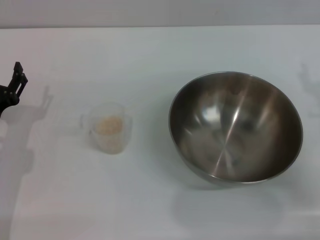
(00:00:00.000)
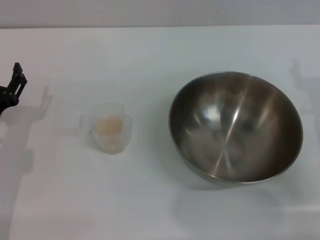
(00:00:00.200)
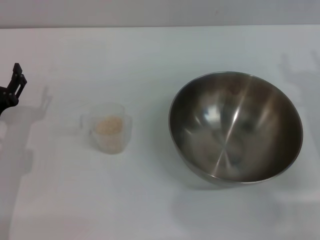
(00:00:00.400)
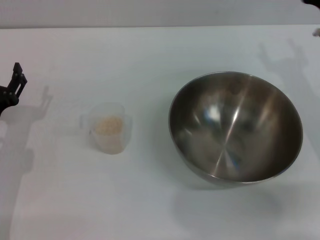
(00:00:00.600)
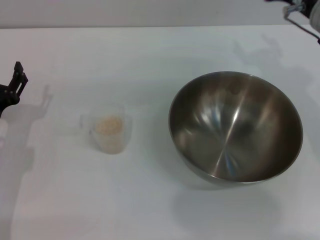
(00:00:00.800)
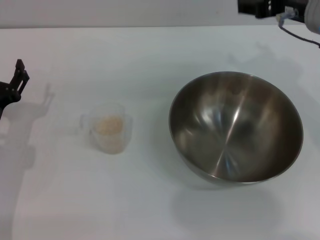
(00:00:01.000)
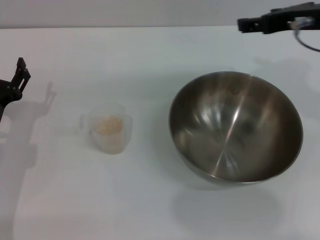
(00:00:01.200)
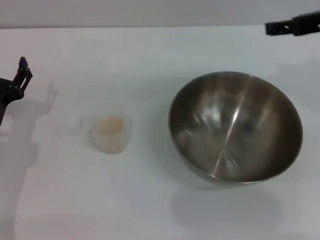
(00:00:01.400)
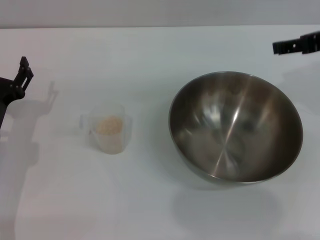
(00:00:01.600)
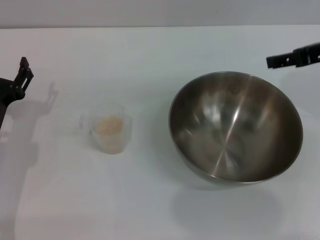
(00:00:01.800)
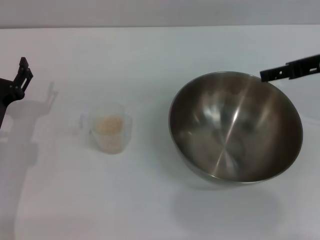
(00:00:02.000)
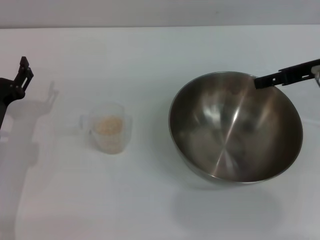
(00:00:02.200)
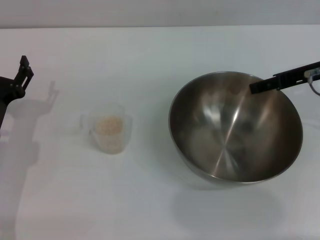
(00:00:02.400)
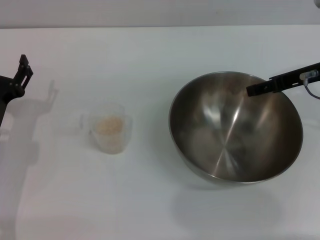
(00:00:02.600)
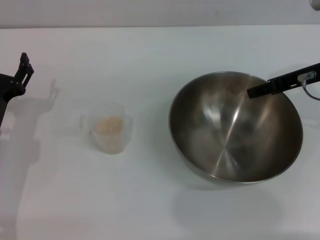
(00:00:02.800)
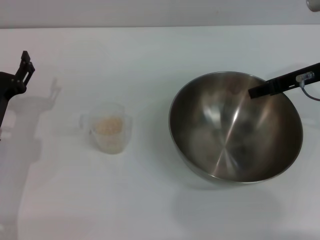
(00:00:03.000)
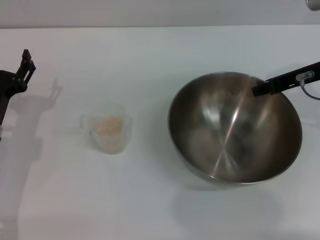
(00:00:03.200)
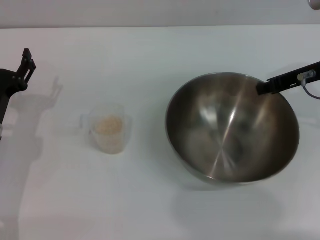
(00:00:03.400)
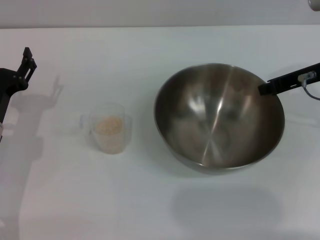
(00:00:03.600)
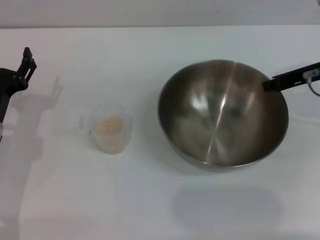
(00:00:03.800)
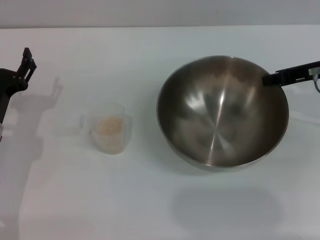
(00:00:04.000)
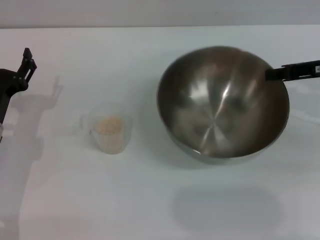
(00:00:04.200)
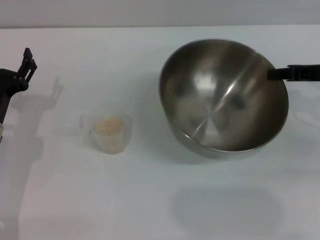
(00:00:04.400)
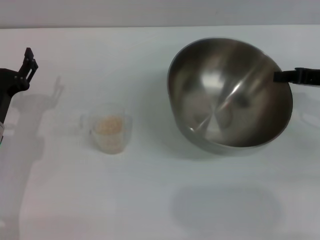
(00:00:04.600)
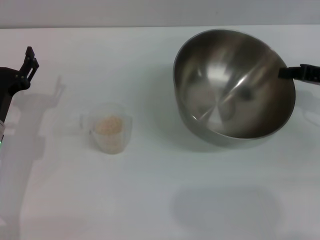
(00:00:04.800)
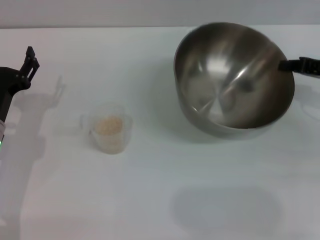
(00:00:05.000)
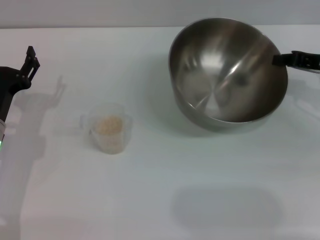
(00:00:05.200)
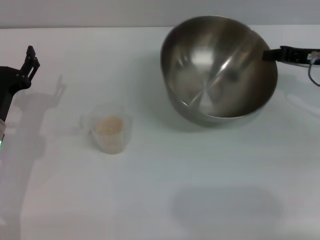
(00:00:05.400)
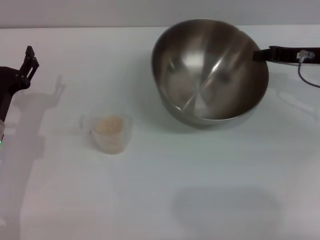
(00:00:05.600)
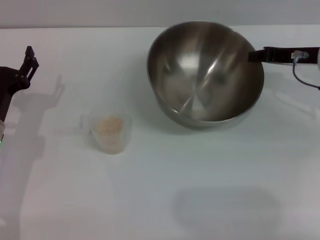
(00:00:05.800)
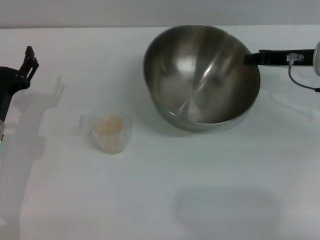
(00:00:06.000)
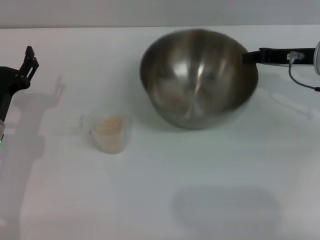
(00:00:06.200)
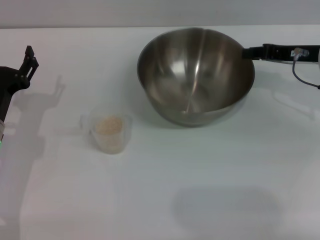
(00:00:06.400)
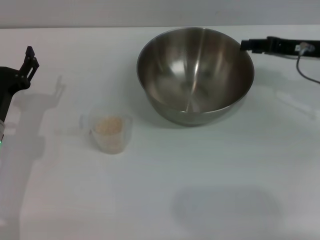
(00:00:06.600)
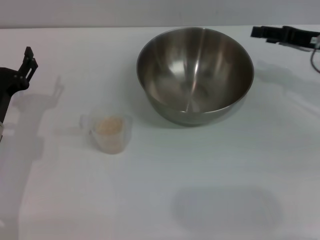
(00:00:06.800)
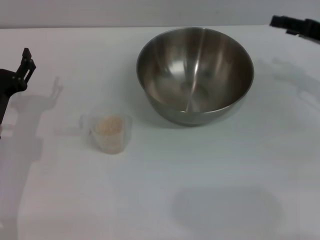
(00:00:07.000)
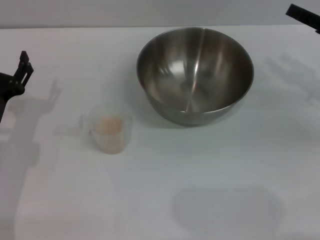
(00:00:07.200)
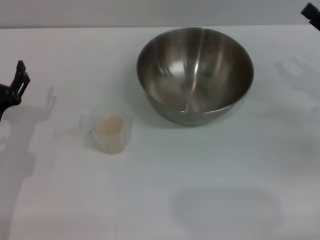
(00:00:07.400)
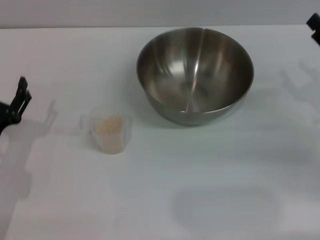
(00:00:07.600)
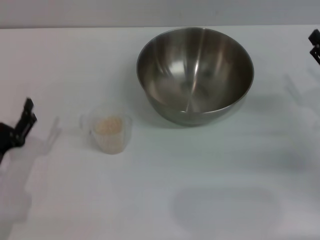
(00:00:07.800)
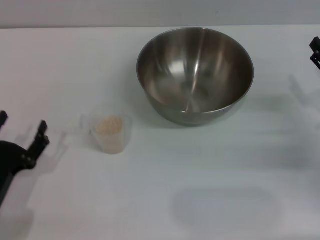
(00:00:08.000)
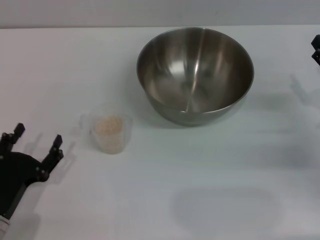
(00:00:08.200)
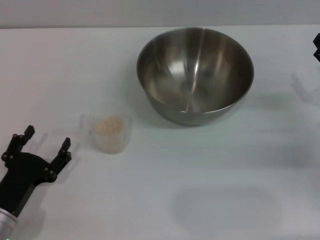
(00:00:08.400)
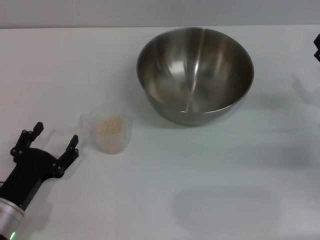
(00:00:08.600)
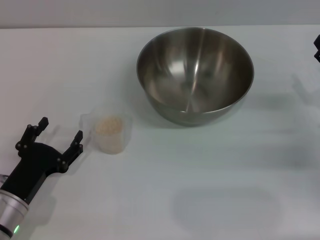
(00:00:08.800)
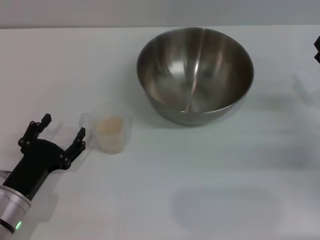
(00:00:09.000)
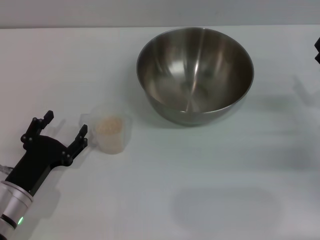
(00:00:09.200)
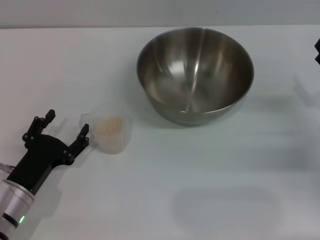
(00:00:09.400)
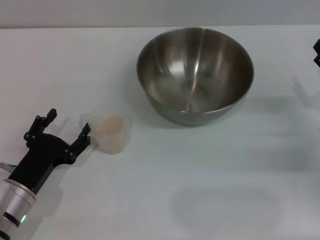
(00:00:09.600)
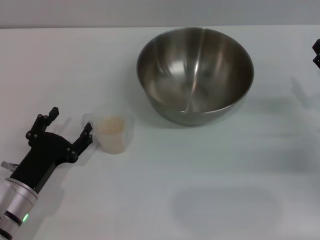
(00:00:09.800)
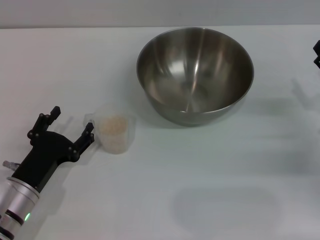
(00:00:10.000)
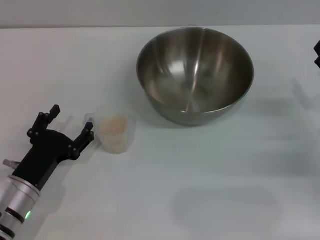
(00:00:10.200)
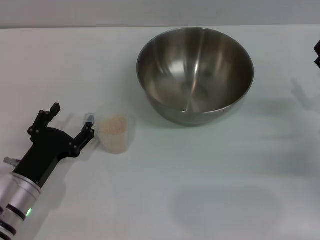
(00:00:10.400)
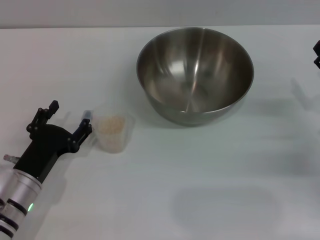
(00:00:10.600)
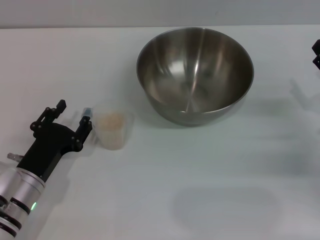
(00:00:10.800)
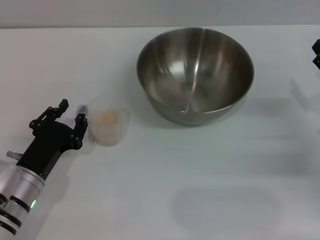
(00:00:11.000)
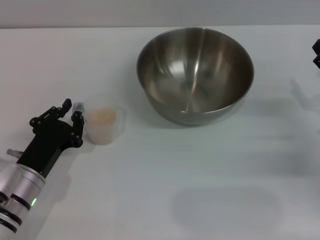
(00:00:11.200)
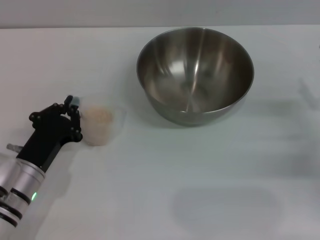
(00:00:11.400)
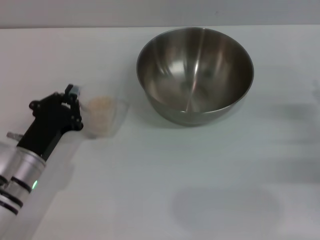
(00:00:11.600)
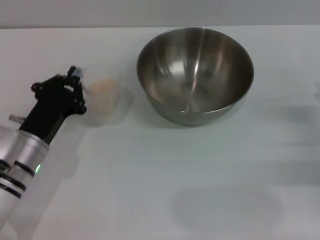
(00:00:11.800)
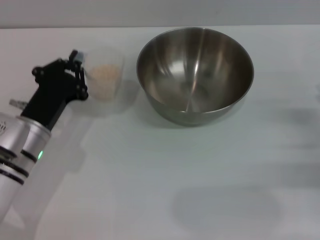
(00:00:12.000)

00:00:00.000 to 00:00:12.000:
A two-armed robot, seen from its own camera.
Task of the whole recording: Place the bowl in the middle of the table with one hand and pour the rice from the grain cup into it with the other hand.
Step, 00:00:00.000 to 00:00:04.800: Pick up the bowl with the right gripper.
Step, 00:00:05.000 to 00:00:06.600: Place the bowl in the center of view with the right gripper.
Step, 00:00:06.800 to 00:00:11.800: Pick up the cup with rice in it with the left gripper.
00:00:00.000 to 00:00:01.600: The right gripper is displaced upward by roughly 15 cm.
00:00:01.600 to 00:00:03.000: The right gripper goes about 5 cm downward.
00:00:03.000 to 00:00:04.400: The right gripper heads to the right, covering approximately 5 cm, and closes up.
00:00:04.400 to 00:00:06.000: The right gripper moves approximately 5 cm.
00:00:06.000 to 00:00:07.600: The left gripper moves backward, roughly 5 cm. Meanwhile the right gripper heads backward and to the right, covering about 10 cm, and opens up.
00:00:07.600 to 00:00:09.000: The left gripper changes place by approximately 5 cm.
00:00:09.000 to 00:00:10.400: The grippers make only small movements.
00:00:10.400 to 00:00:12.000: The left gripper shifts some 5 cm forward, and closes its fingers.

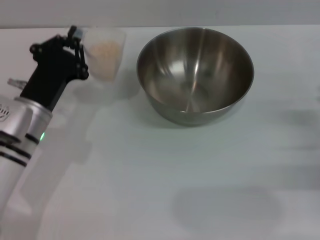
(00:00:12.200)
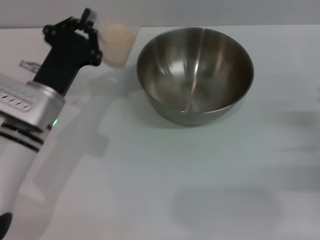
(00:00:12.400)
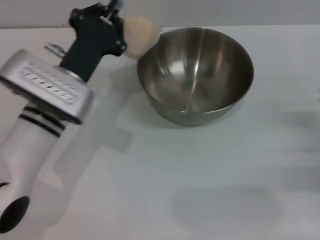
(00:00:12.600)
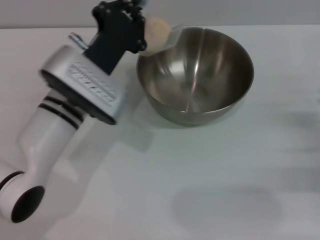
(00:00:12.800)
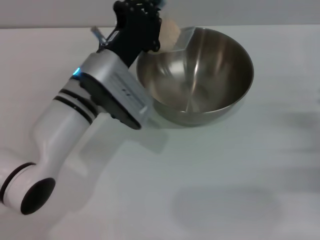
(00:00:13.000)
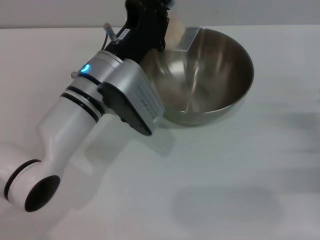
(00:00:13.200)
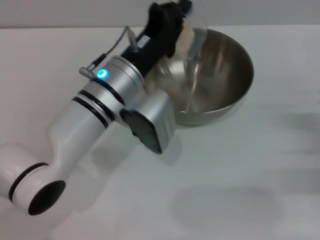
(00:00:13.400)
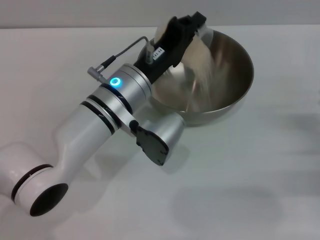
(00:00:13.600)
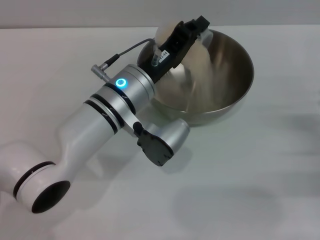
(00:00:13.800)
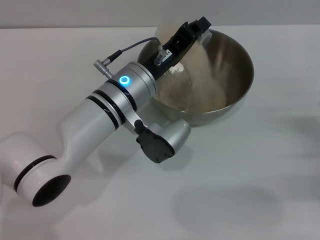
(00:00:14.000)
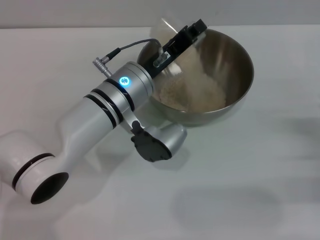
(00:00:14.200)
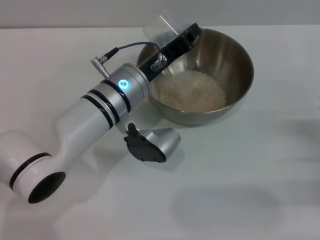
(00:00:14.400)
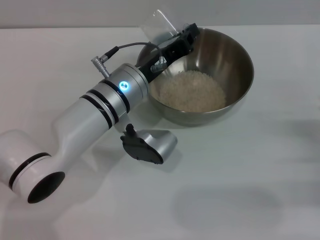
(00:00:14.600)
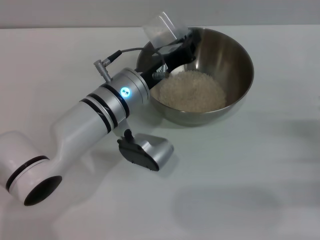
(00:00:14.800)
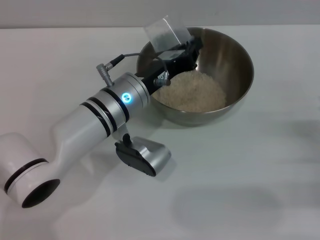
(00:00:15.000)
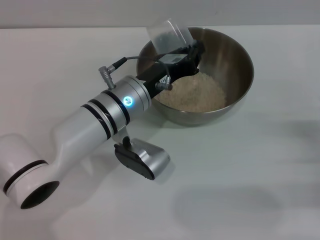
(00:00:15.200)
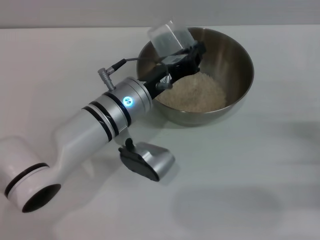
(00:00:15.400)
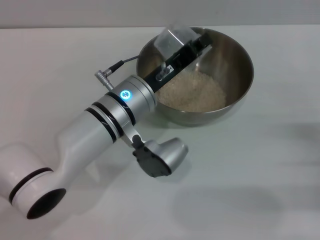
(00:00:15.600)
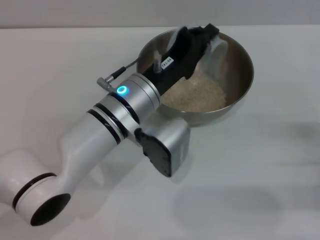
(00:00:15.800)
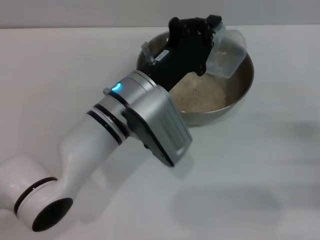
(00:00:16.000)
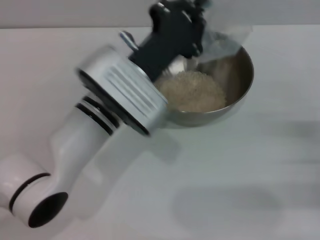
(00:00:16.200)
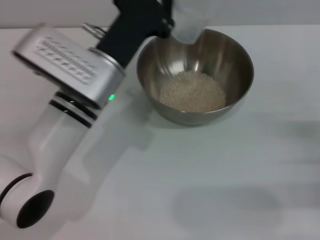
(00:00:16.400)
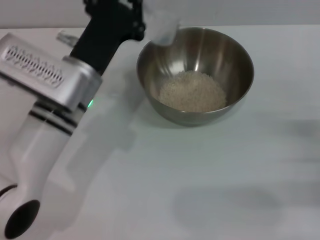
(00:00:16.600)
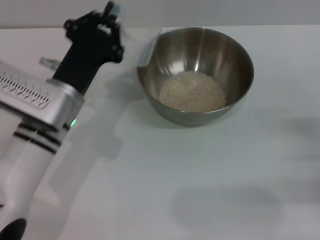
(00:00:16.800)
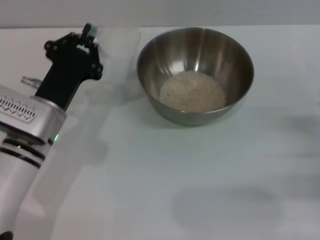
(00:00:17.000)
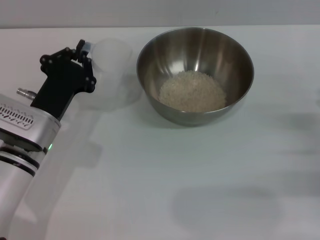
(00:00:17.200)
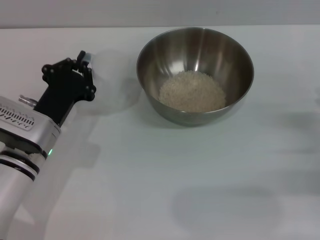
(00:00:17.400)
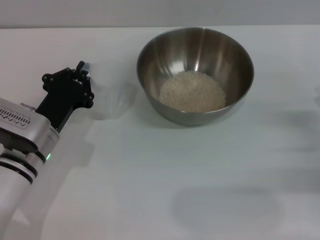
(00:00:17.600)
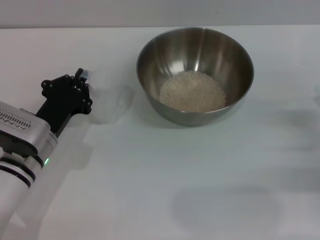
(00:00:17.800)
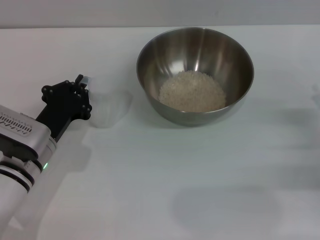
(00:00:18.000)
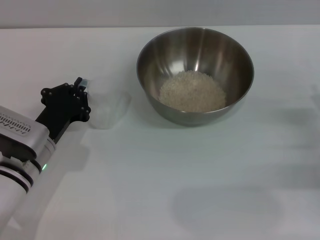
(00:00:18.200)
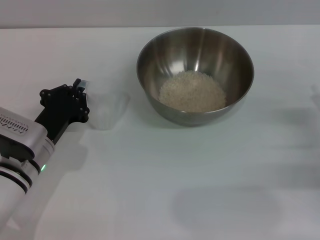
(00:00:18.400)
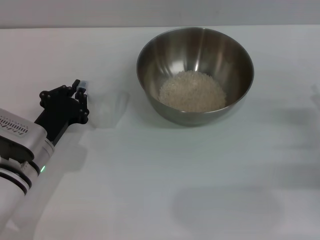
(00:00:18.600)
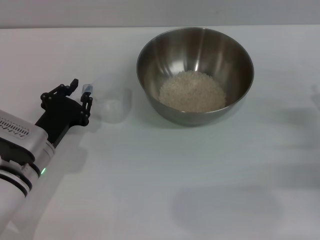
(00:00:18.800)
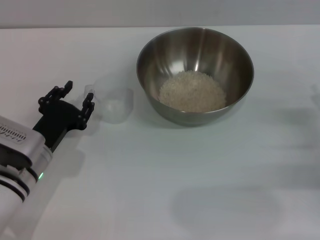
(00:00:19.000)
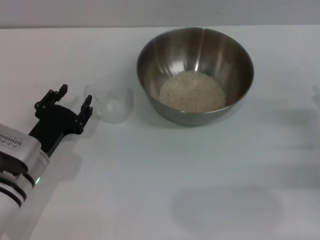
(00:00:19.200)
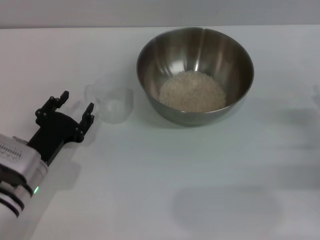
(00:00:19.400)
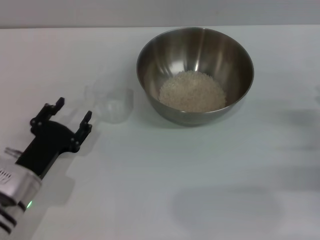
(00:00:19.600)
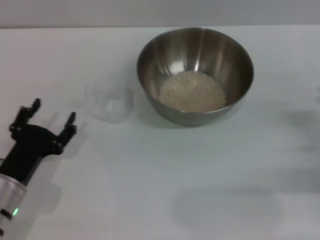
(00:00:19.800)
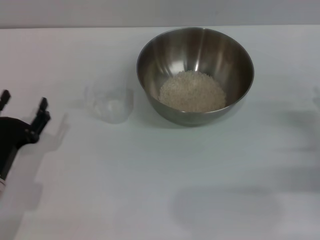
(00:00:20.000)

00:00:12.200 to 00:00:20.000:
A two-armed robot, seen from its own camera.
Task of the whole recording: Place the bowl in the middle of the table with one hand and pour the rice from the grain cup into it with the other hand.
Step, 00:00:12.200 to 00:00:15.800: Pour the rice from the cup into the bowl with the left gripper.
Step, 00:00:16.000 to 00:00:19.400: Place the cup on the table with the left gripper.
00:00:12.200 to 00:00:13.800: The left gripper travels to the right by approximately 15 cm.
00:00:15.400 to 00:00:16.800: The left gripper travels to the left by about 10 cm.
00:00:16.800 to 00:00:18.400: The left gripper moves downward and to the left, some 10 cm.
00:00:18.400 to 00:00:20.000: The left gripper goes roughly 10 cm backward and to the left, and opens up.
